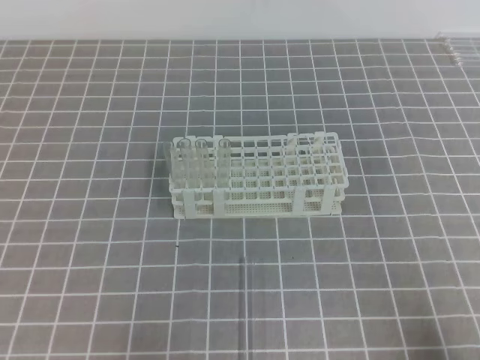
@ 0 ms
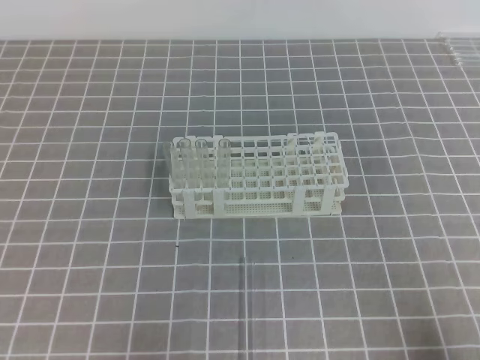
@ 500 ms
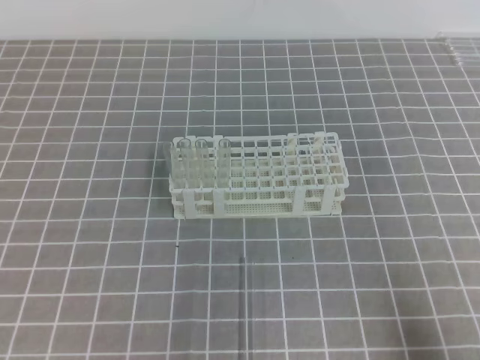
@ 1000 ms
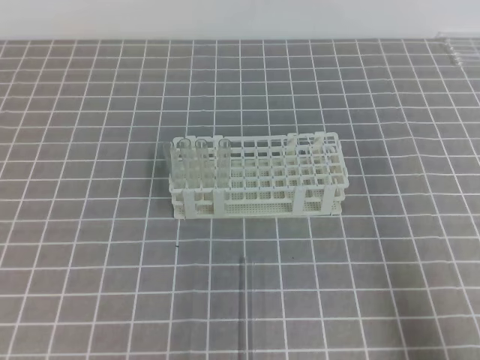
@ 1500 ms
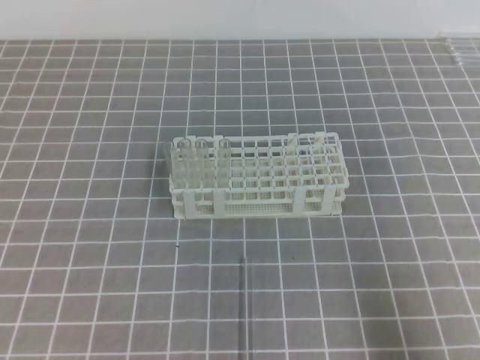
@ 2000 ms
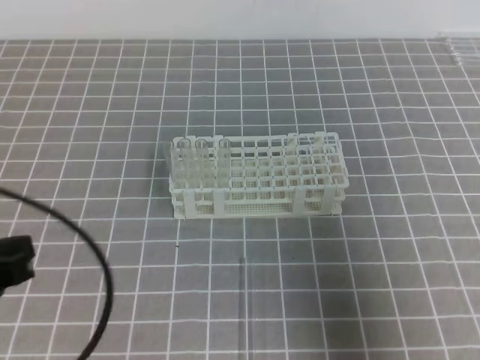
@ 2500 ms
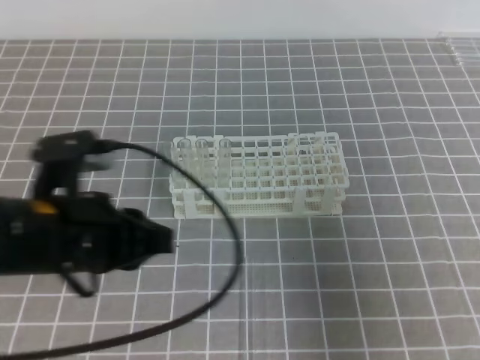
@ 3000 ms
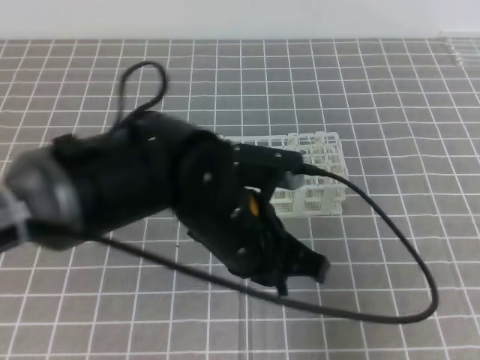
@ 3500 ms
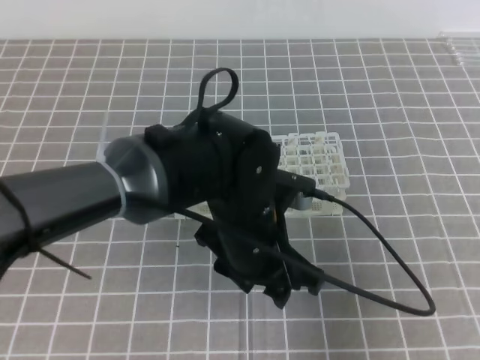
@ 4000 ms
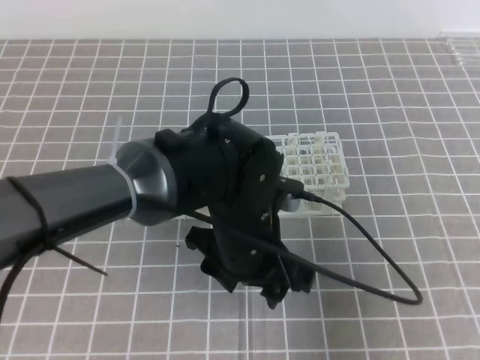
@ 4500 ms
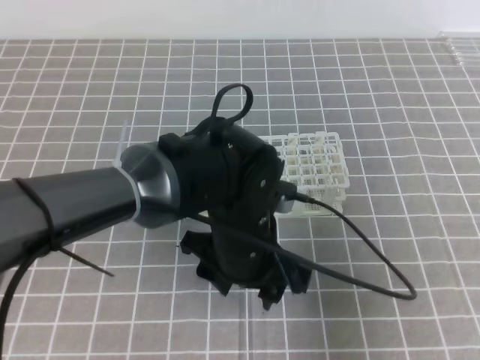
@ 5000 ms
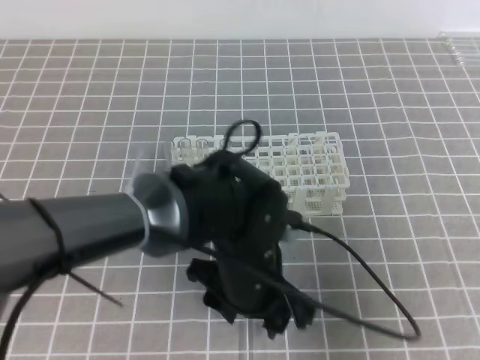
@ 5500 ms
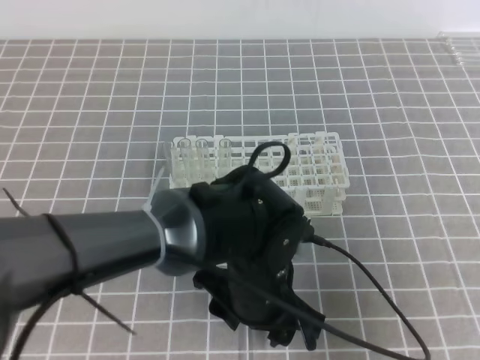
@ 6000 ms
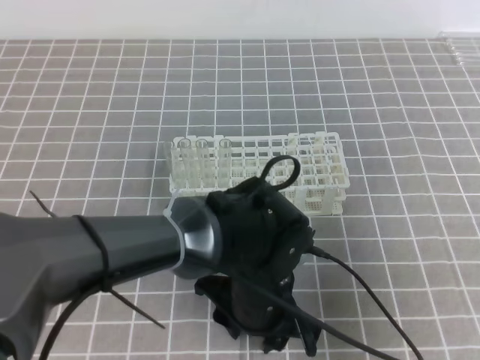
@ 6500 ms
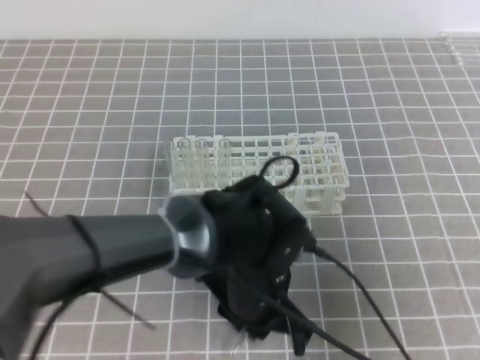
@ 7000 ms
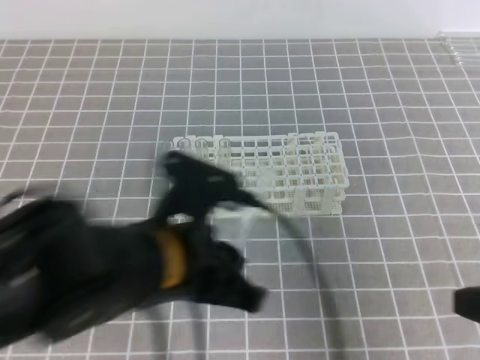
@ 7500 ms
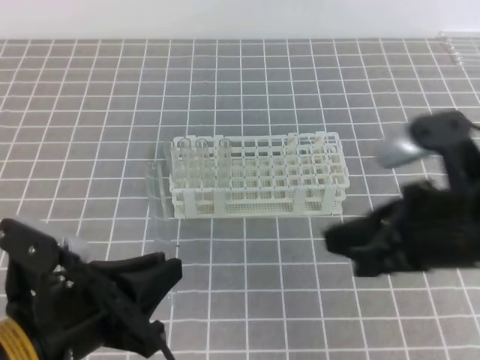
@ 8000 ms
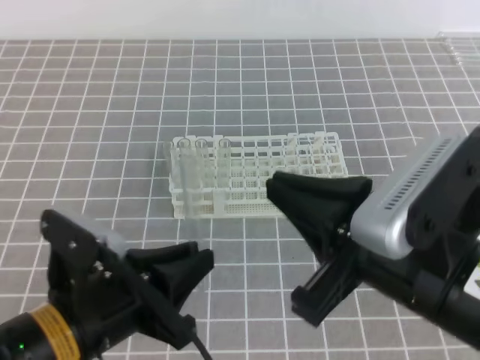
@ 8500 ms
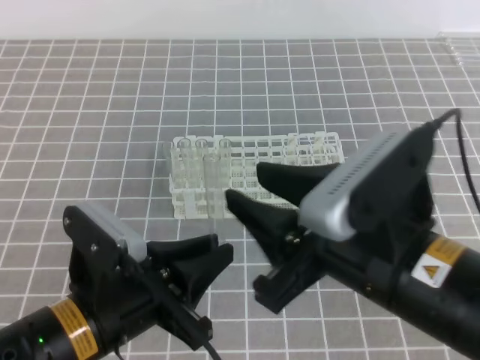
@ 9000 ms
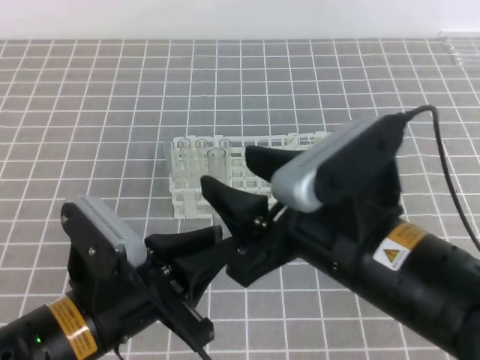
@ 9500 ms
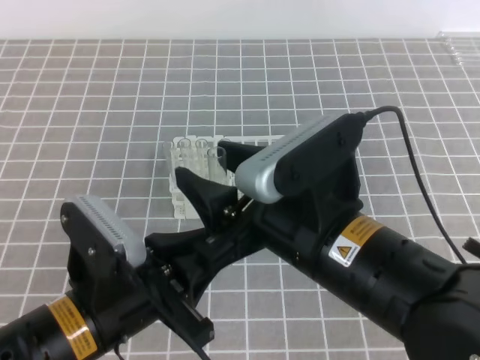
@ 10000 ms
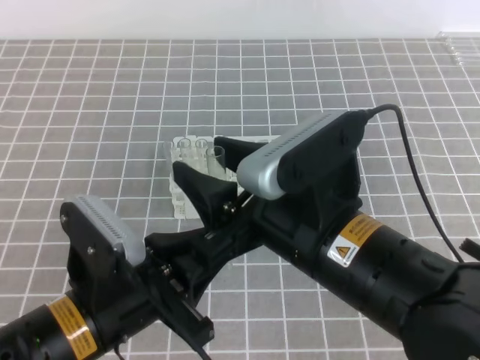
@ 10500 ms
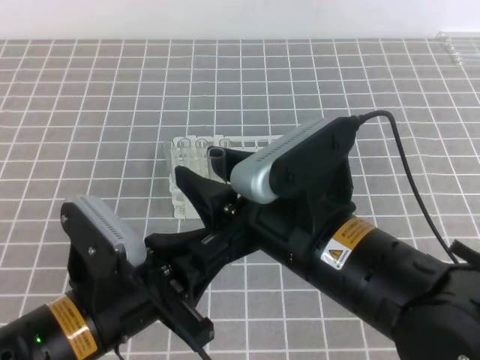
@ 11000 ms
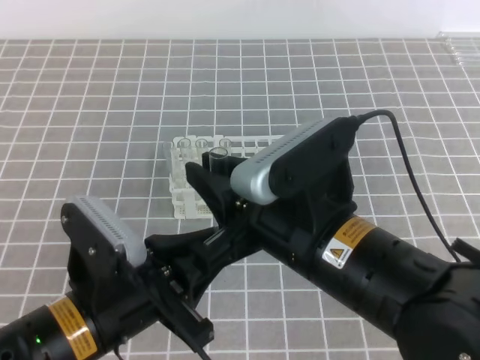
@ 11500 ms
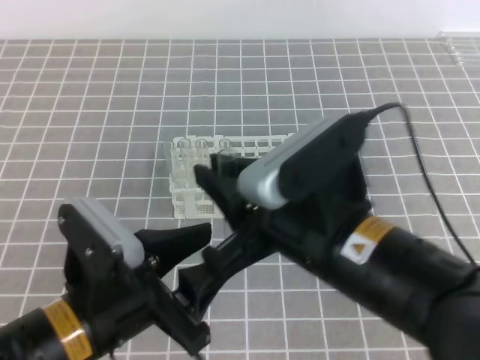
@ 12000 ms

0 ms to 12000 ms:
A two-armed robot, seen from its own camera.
0 ms to 2000 ms: The right gripper goes approximately 5 cm upward.
2000 ms to 4000 ms: The left gripper heads to the right and forward, covering approximately 35 cm, and opens its fingers, while the right gripper goes approximately 5 cm forward.
4000 ms to 6000 ms: The left gripper changes place by approximately 5 cm.
6000 ms to 8000 ms: The right gripper moves to the left, roughly 10 cm. The left gripper moves to the left and backward, approximately 20 cm, and closes.
8000 ms to 10000 ms: The right gripper shifts about 10 cm to the left, and opens.
10000 ms to 12000 ms: The left gripper opens its fingers, while the right gripper closes its fingers.

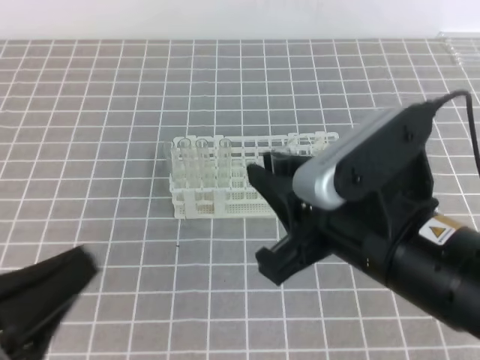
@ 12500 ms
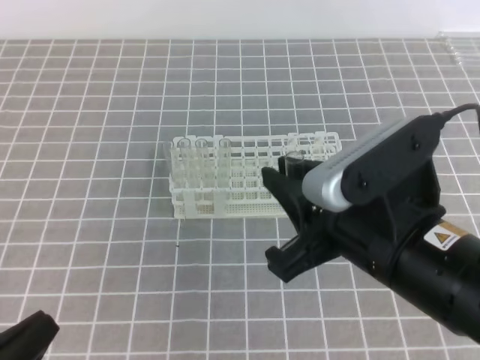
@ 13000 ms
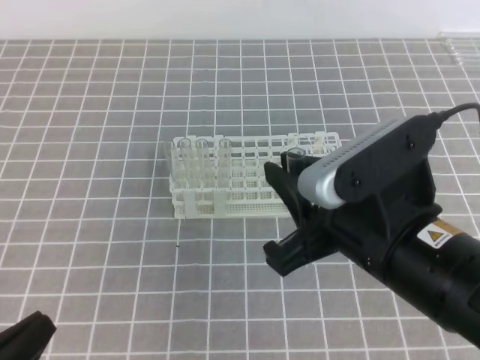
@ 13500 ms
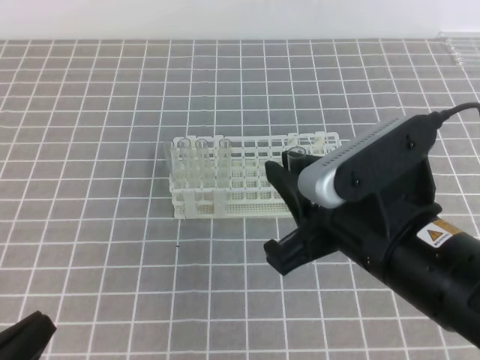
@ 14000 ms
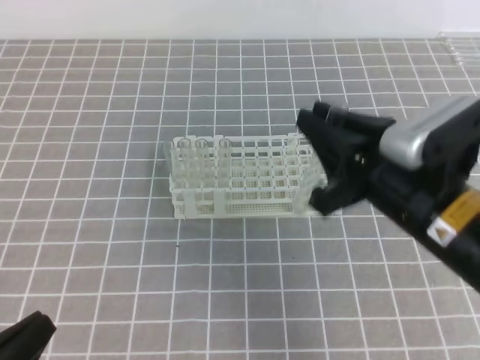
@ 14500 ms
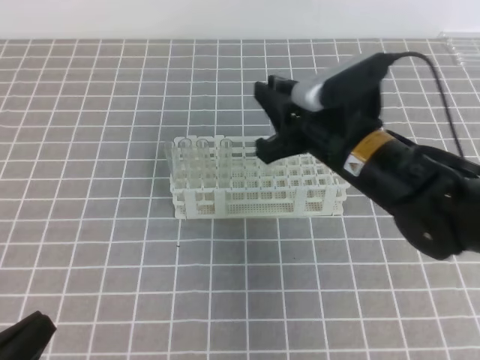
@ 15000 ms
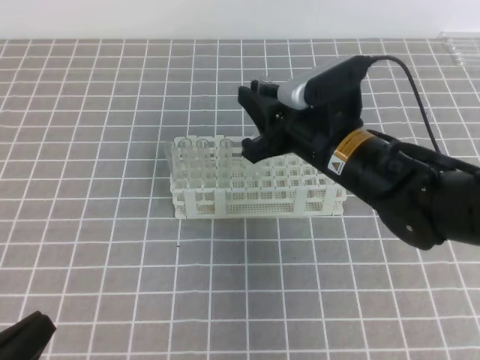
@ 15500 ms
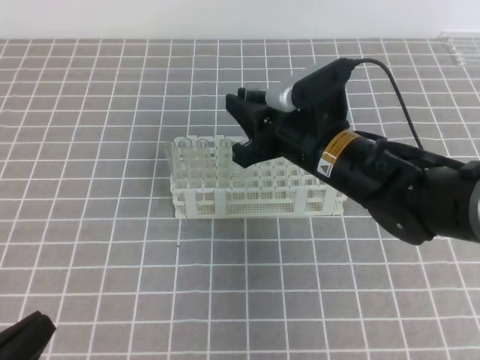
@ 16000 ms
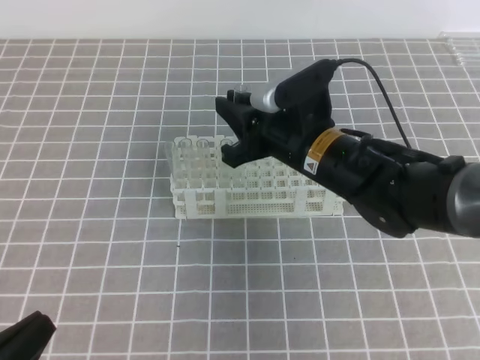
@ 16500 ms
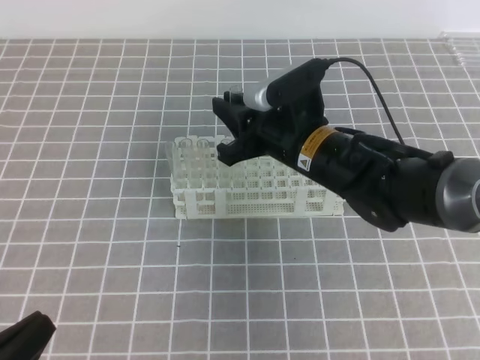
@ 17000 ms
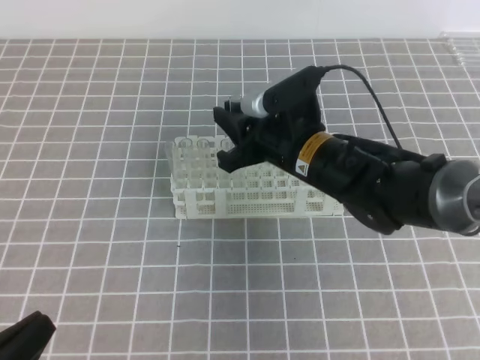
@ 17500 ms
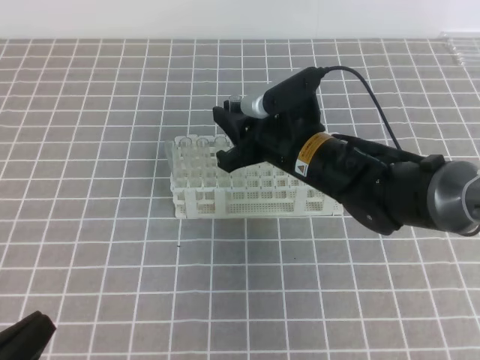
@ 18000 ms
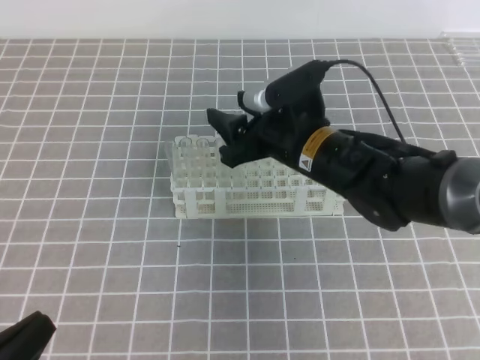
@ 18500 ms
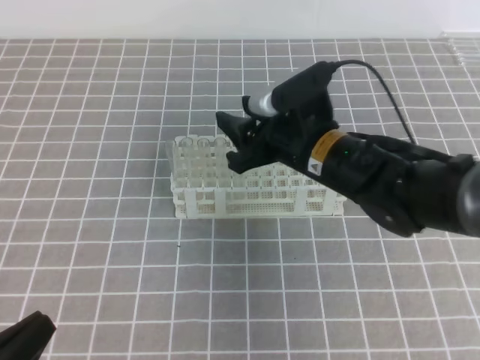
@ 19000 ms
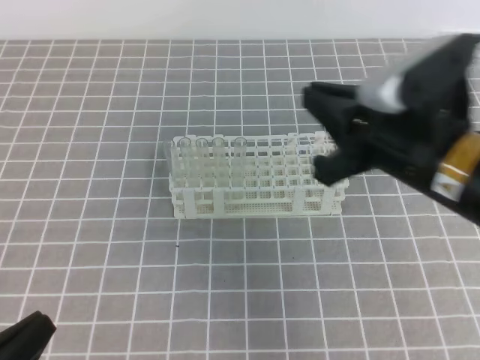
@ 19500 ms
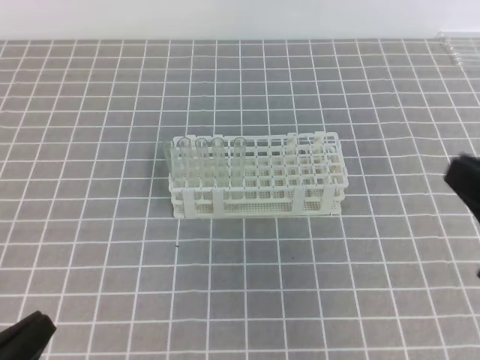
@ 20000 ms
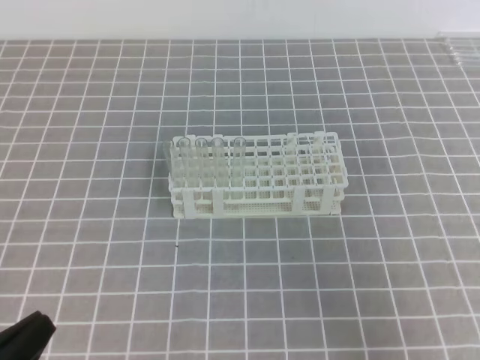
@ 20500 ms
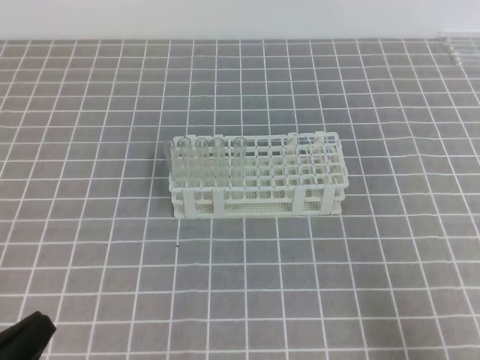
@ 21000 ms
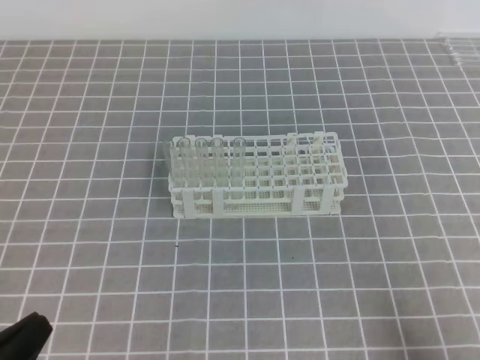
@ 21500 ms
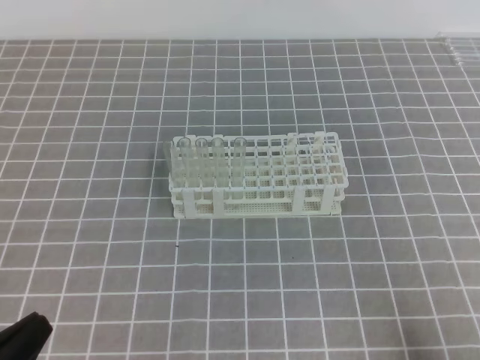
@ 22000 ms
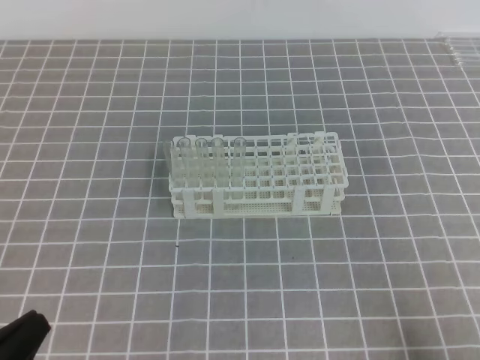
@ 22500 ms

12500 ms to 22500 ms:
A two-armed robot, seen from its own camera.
12500 ms to 14500 ms: The right gripper goes some 5 cm forward, while the left gripper heads downward, covering approximately 10 cm.
14500 ms to 16500 ms: The right gripper goes about 15 cm forward, to the left and downward.
16500 ms to 18500 ms: The right gripper opens its fingers.
18500 ms to 20500 ms: The right gripper is displaced backward and to the right by roughly 30 cm, and closes up.
20500 ms to 22500 ms: The right gripper moves downward, about 10 cm.

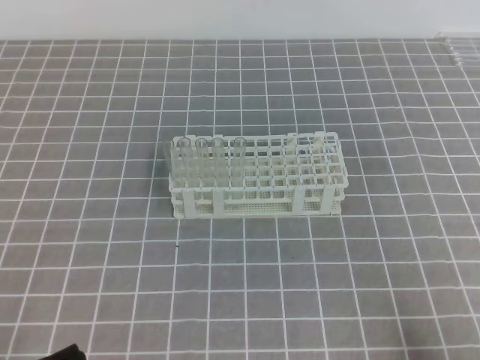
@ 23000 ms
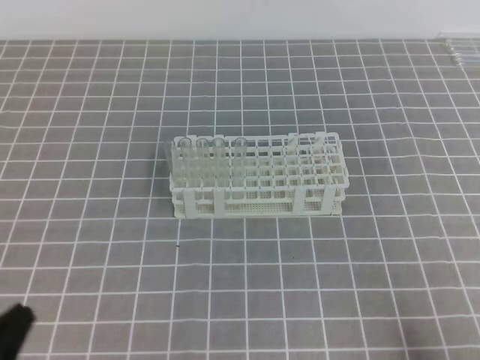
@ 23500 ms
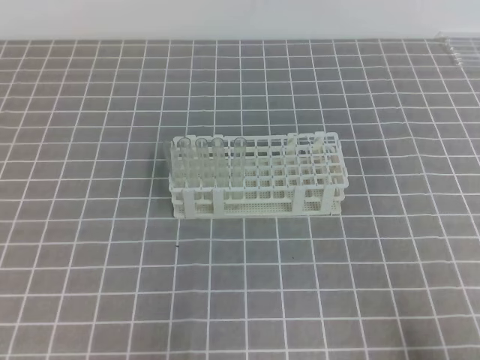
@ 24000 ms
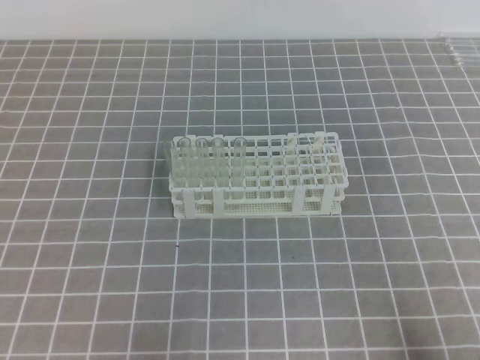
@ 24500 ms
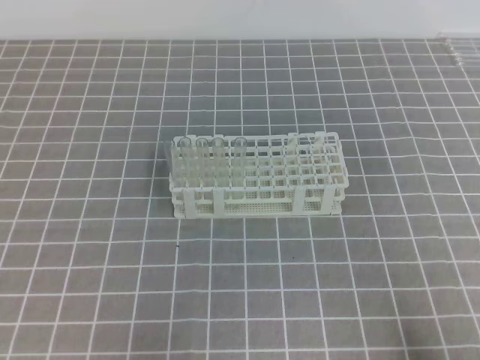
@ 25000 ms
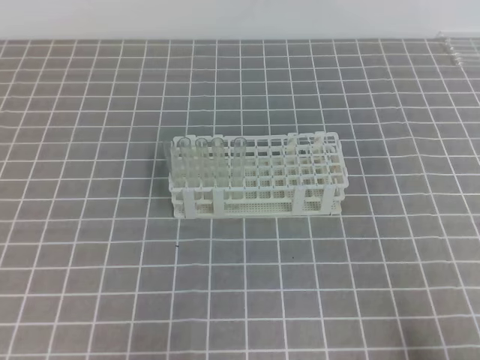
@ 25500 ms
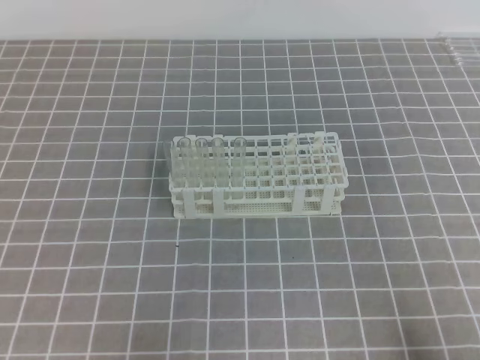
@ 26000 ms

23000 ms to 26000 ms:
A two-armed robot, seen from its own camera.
24500 ms to 26000 ms: Both grippers stay put.
